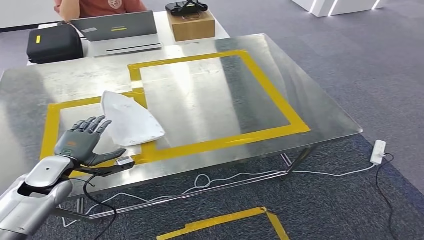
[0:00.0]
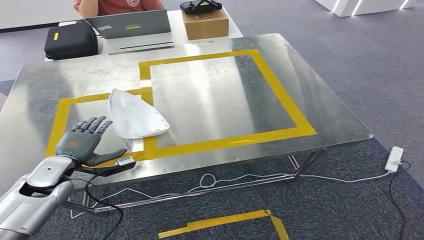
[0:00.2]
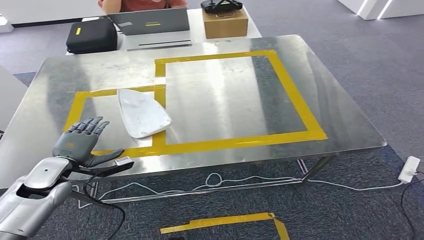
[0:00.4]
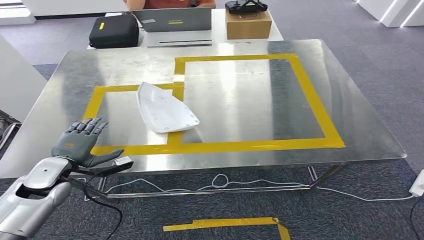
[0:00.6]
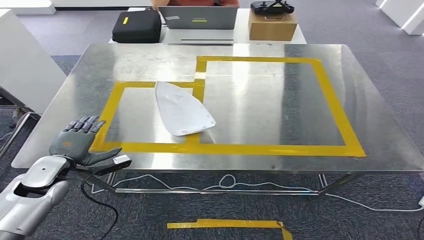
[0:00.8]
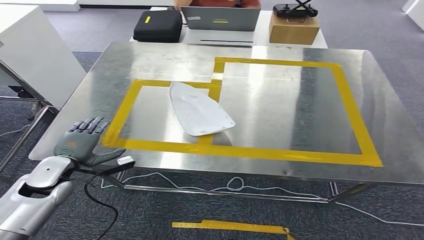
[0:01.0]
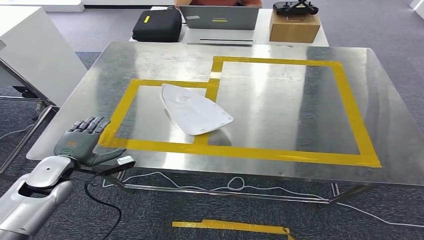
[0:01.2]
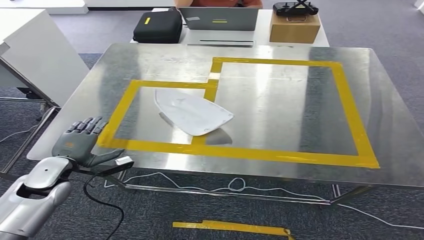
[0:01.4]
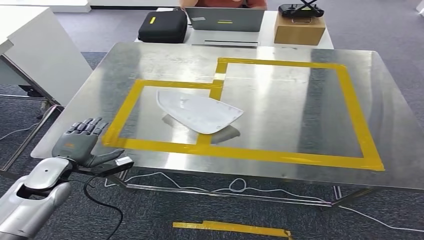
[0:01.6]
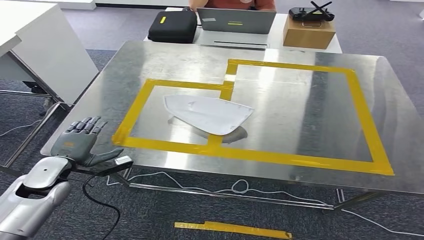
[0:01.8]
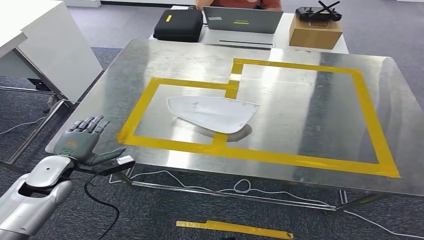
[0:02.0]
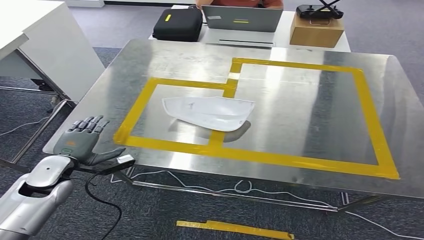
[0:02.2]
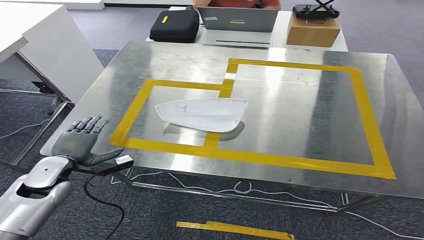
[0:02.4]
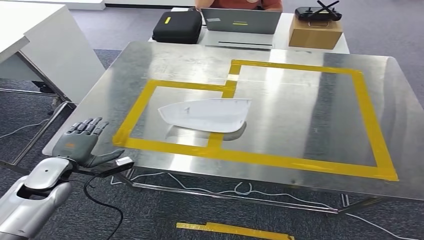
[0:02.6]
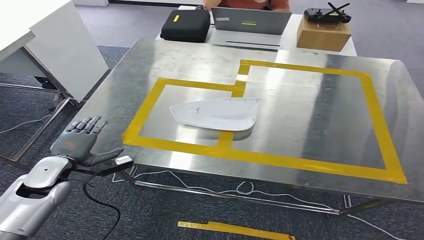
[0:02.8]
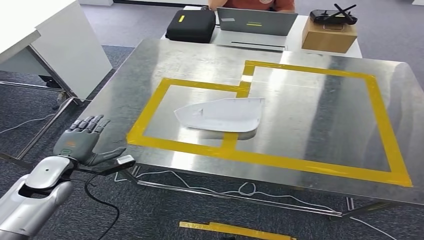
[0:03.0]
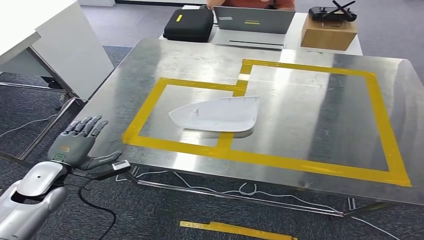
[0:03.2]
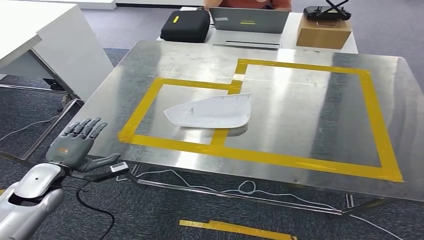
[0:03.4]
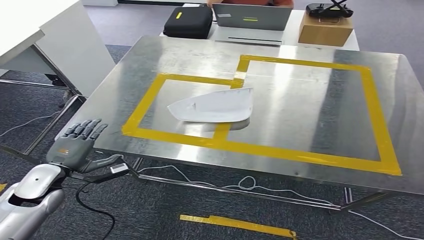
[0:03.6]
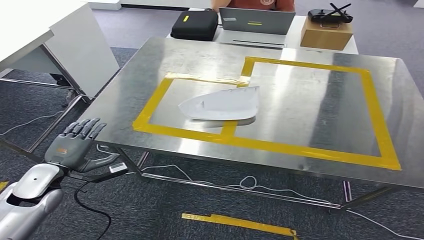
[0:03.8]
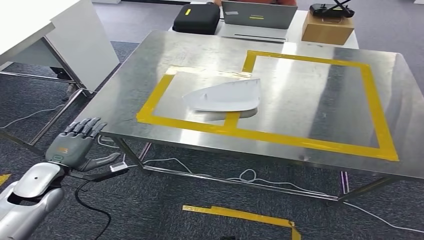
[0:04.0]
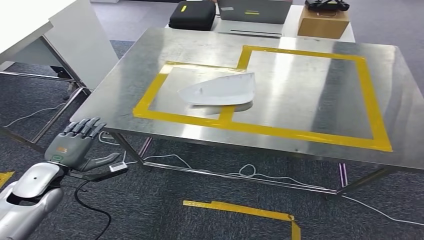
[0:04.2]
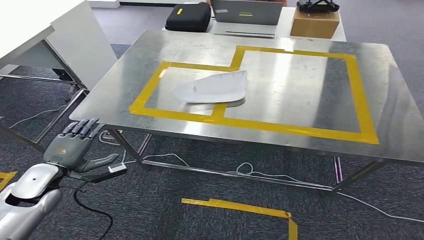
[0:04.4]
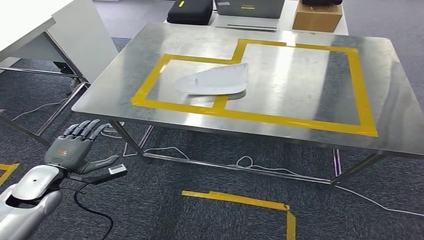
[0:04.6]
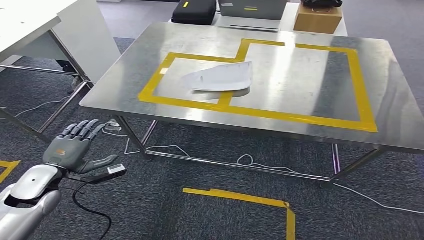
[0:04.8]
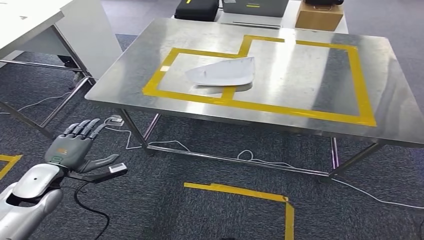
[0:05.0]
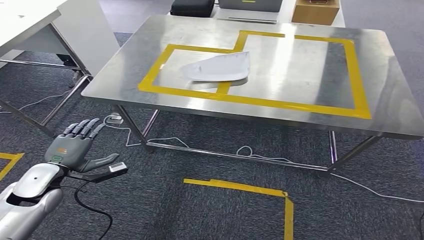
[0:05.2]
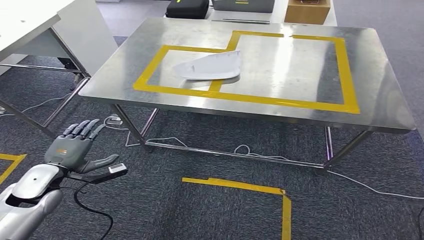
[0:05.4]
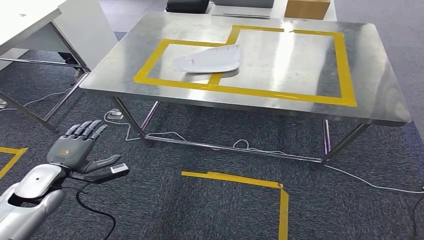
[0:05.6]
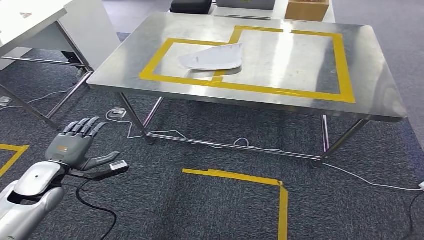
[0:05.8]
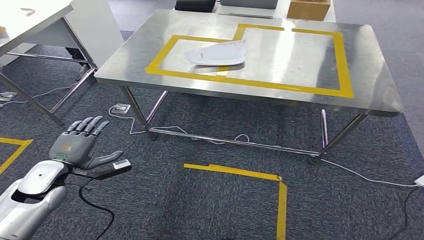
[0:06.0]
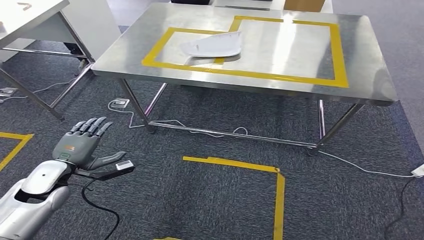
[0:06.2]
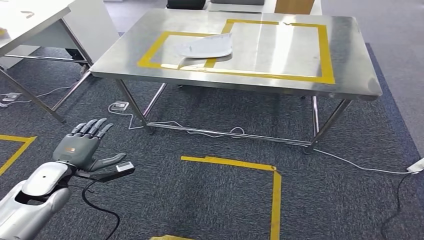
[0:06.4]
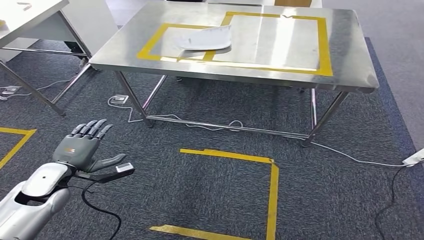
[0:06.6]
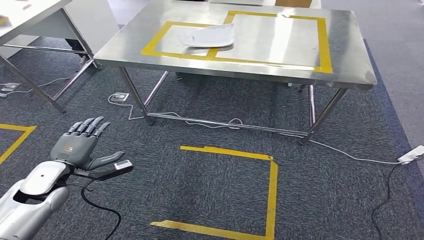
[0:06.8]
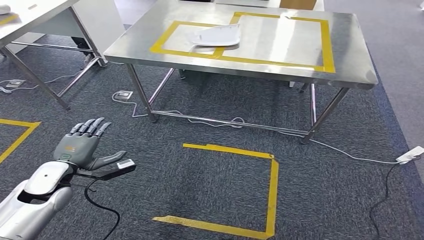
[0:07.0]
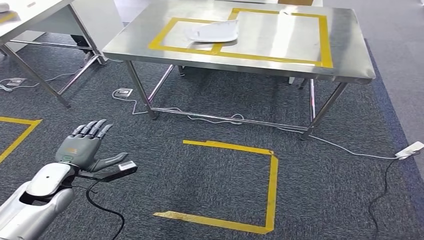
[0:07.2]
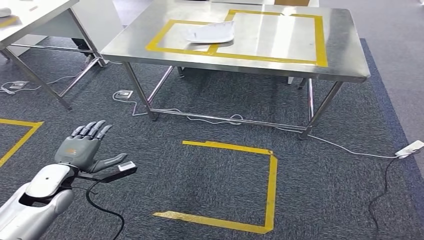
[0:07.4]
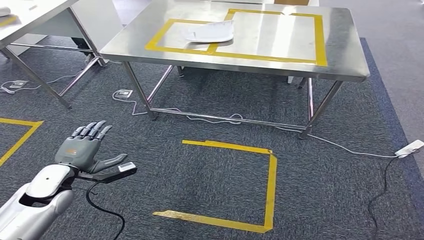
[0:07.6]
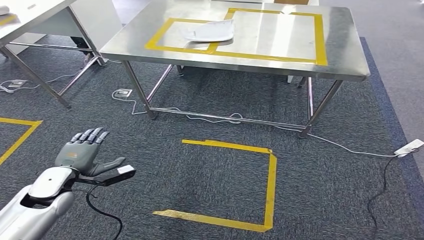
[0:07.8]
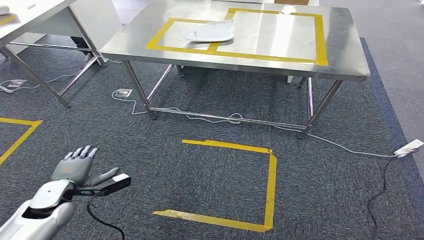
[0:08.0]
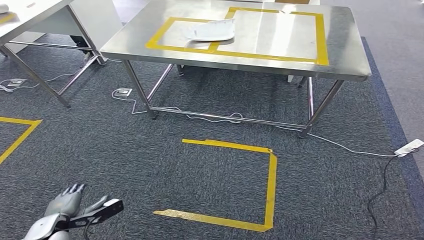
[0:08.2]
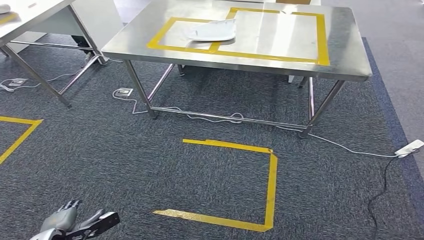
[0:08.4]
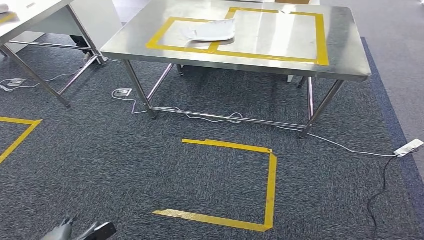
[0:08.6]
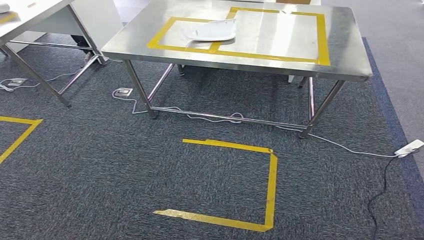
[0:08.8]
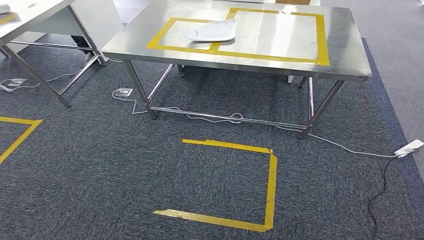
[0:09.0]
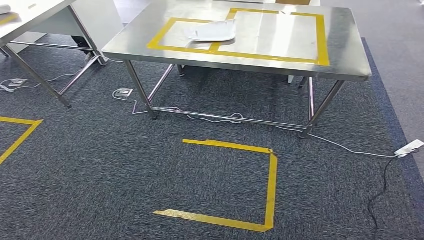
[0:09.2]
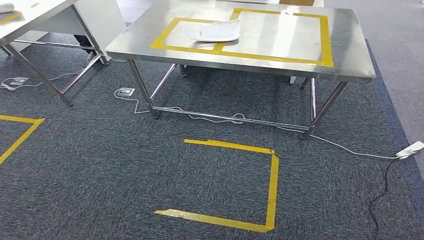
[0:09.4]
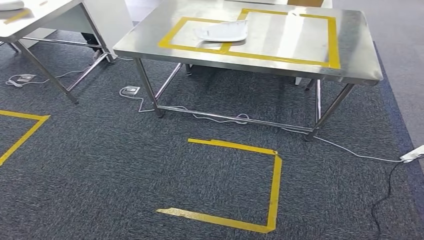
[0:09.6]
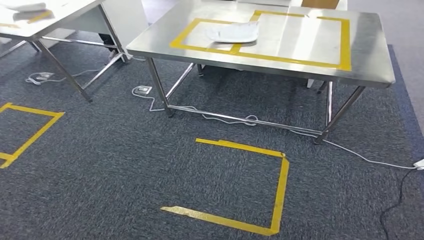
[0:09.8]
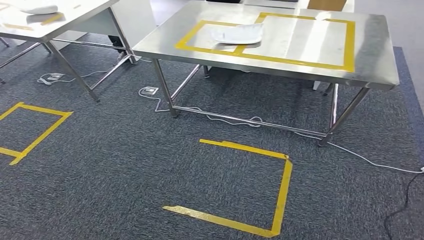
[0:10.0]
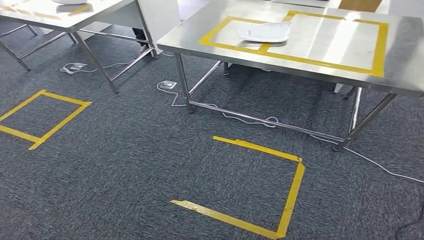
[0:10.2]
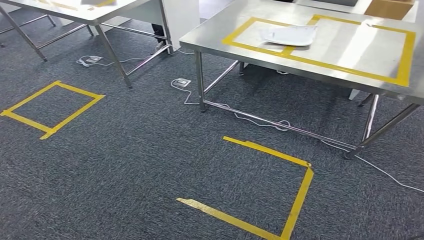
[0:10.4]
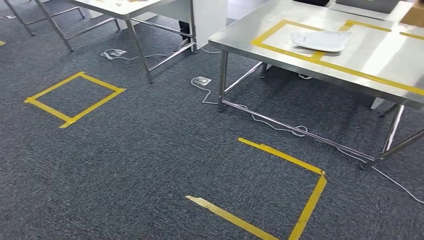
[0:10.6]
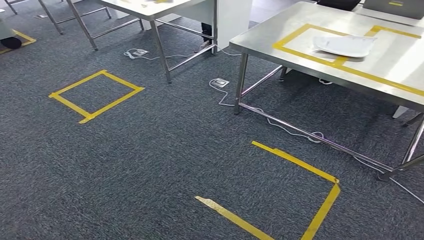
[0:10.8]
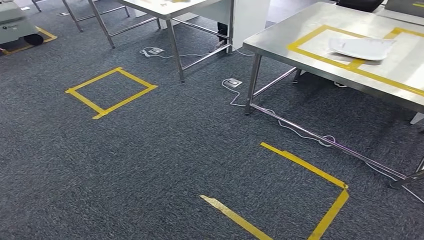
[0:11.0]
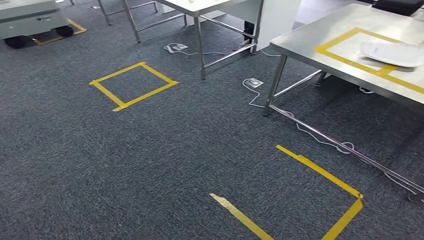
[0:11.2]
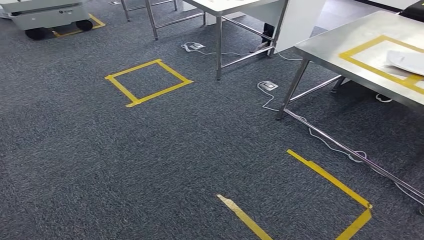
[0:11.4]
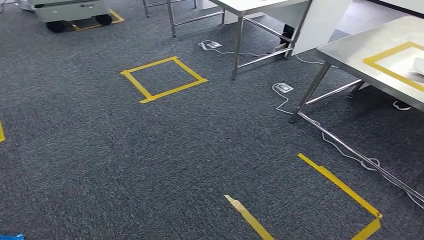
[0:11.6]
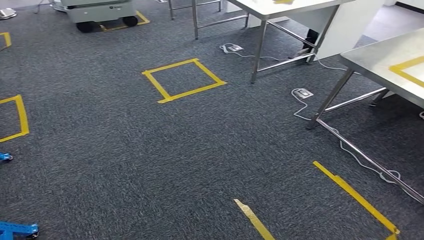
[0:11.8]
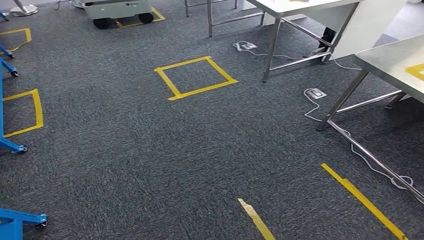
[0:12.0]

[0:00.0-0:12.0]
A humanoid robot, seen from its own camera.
0:07.6 to 0:09.0: The left hand travels backward and downward by roughly 30 cm.

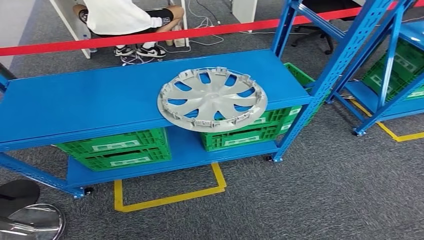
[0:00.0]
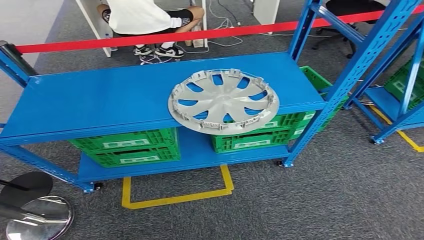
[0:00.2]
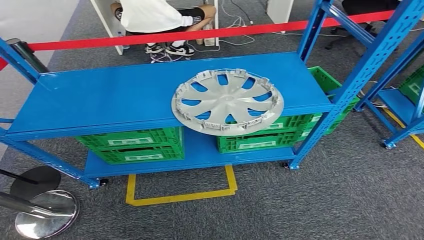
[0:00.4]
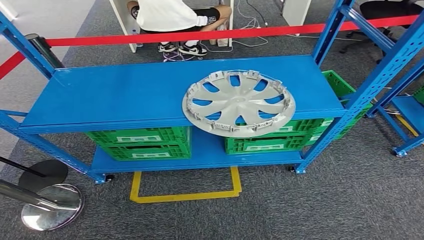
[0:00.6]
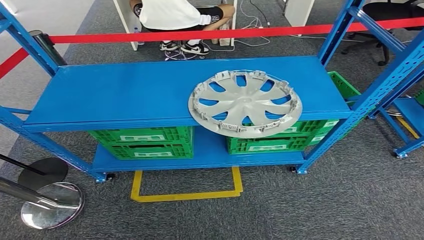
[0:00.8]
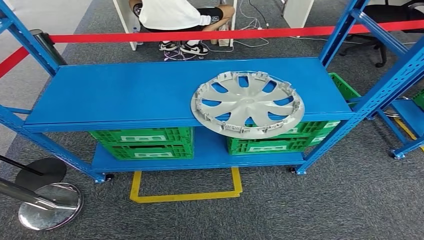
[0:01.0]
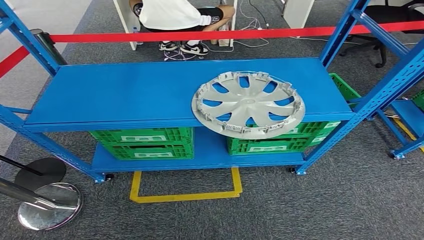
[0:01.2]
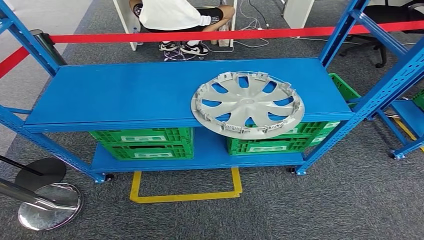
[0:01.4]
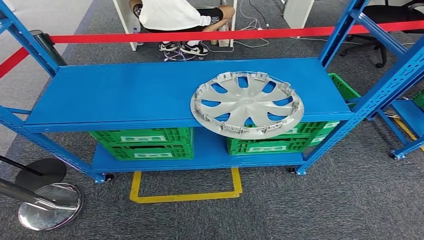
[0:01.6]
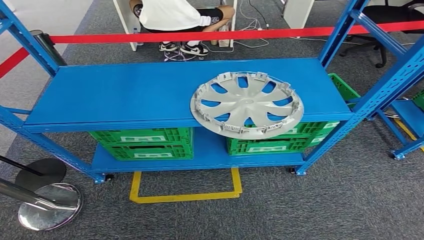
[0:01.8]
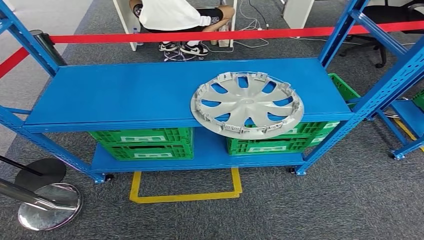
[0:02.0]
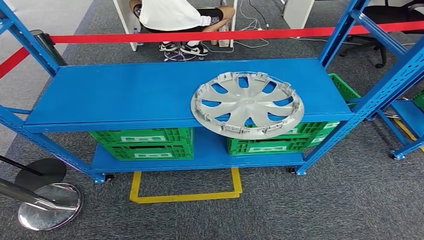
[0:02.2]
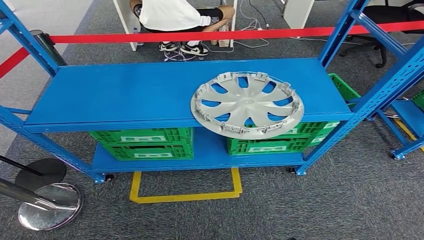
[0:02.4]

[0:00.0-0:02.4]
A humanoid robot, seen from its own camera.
Step, 0:00.0 to 0:02.4: Return to the initial position at the workbench.
